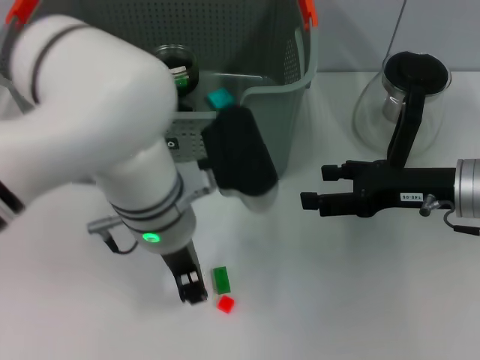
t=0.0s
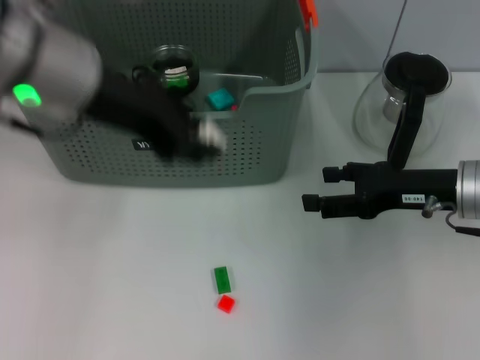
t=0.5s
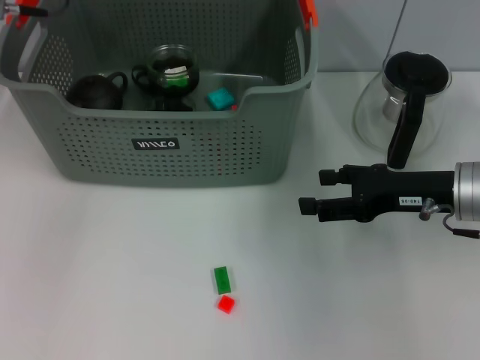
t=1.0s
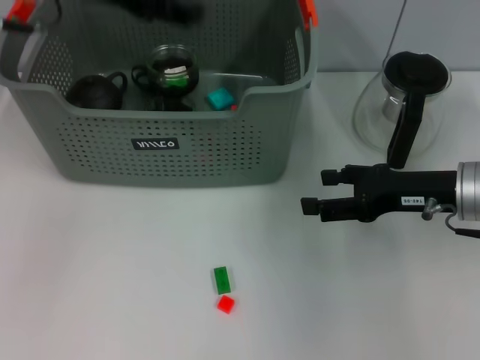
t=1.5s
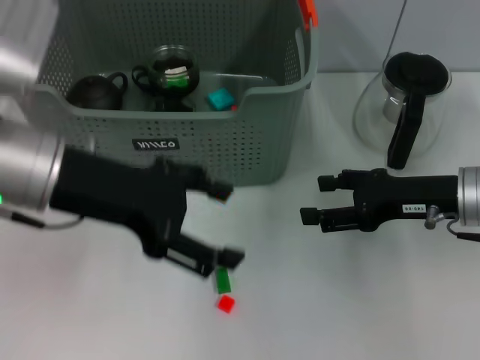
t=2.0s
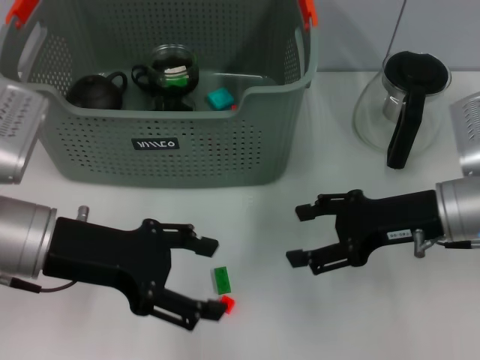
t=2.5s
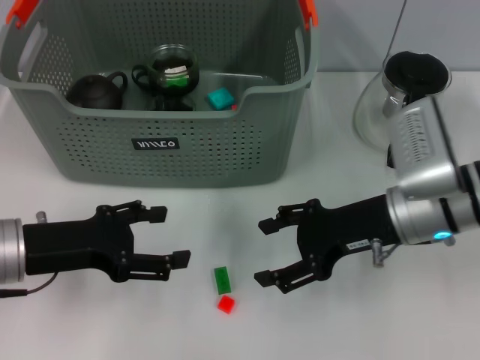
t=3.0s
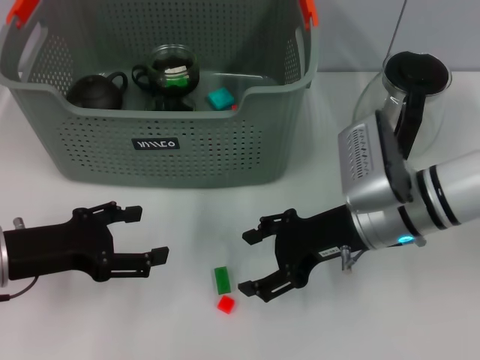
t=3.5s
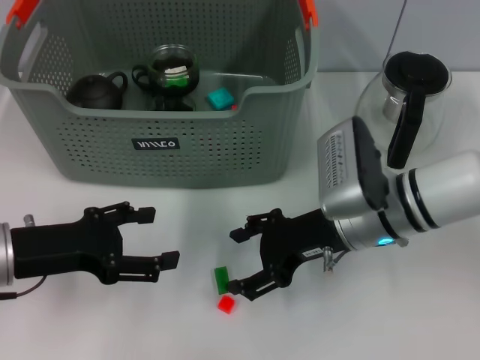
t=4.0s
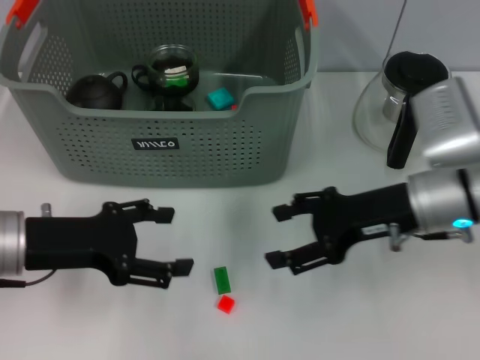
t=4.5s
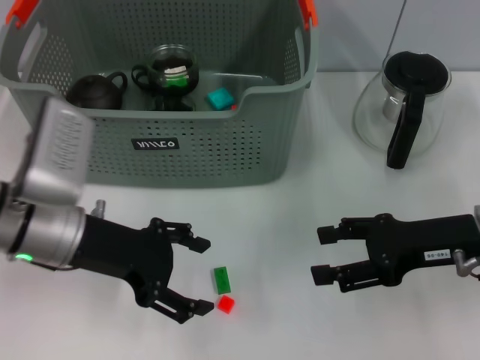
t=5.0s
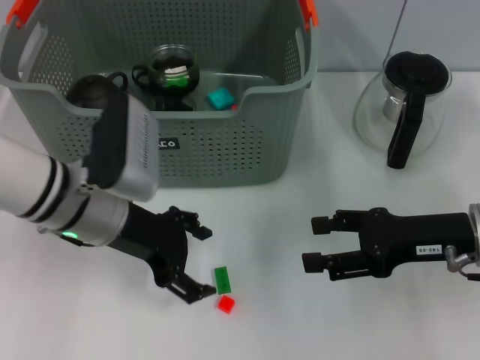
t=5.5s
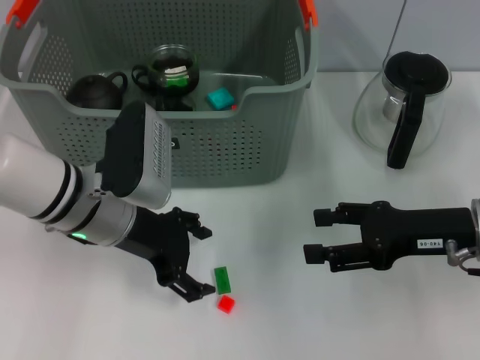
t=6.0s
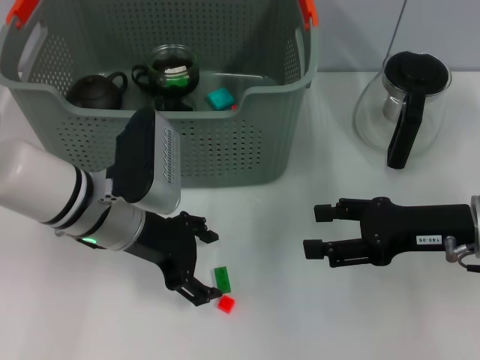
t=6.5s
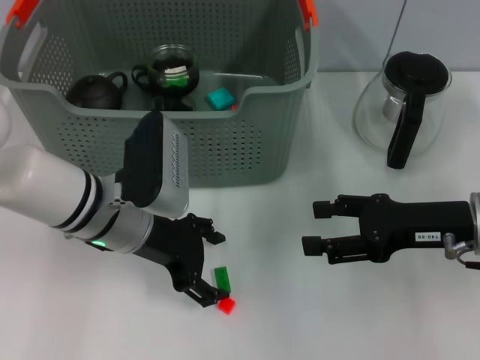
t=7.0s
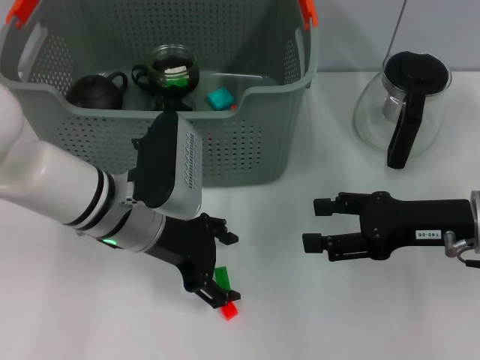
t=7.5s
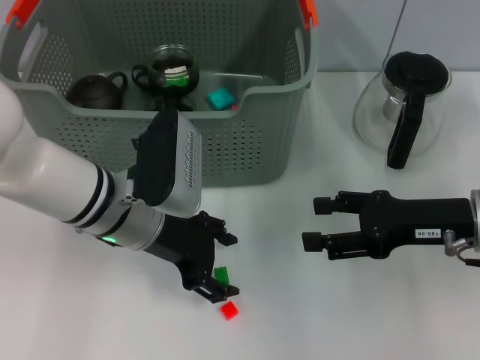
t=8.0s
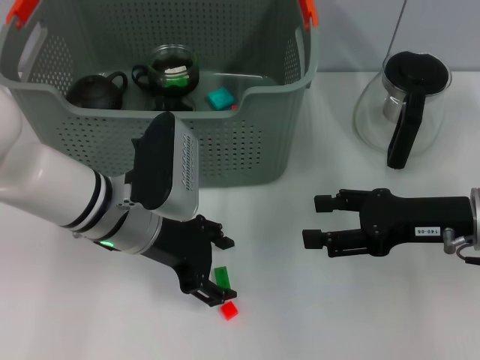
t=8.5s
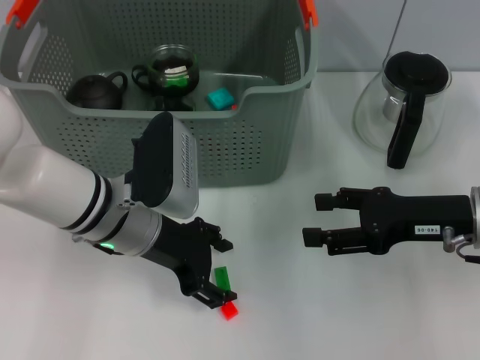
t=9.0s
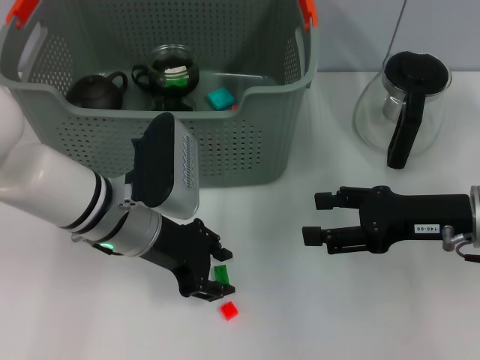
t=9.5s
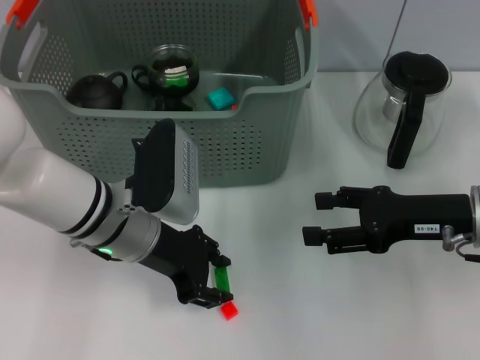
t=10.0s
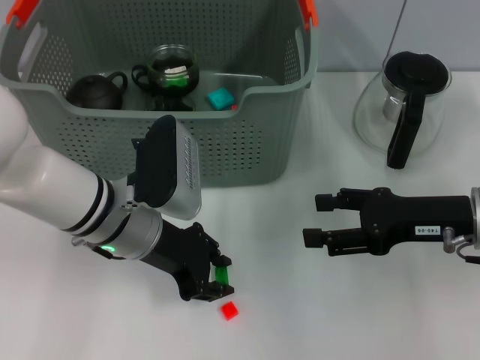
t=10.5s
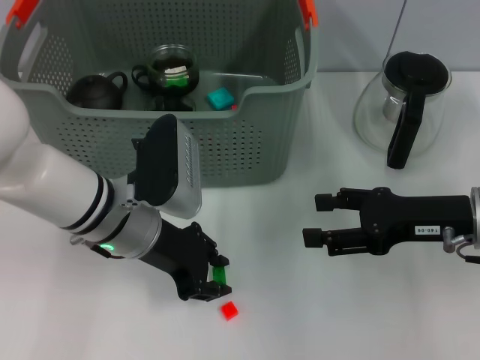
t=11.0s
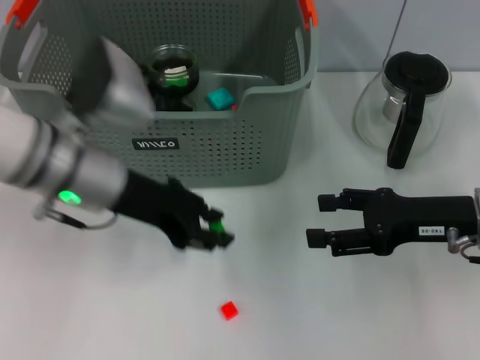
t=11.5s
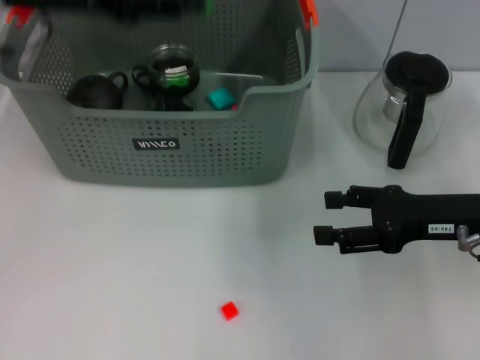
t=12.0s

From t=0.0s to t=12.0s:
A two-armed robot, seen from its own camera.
Task of the whole recording: pick up the teacup on the table and place it into the storage bin, pick up the block on the table and place it into the storage bin.
Step, from t=0.0s to t=1.0s: Place the white block in the storage box with left gripper.
Step, from t=1.5s to t=10.5s: Grasp the green block with left gripper.
From t=0.0s to t=2.0s: The left gripper travels to the left and upward by roughly 15 cm, and opens.
From t=2.0s to t=4.0s: The right gripper moves to the left, roughly 10 cm, while the left gripper is displaced downward and to the left by some 15 cm.
From t=4.0s to t=6.0s: The left gripper is displaced to the right and forward by roughly 10 cm; the right gripper heads to the right, covering some 10 cm.
From t=6.0s to t=8.0s: The grippers move only a little.
From t=8.0s to t=10.0s: The left gripper closes.
From t=10.0s to t=12.0s: The left gripper travels upward and to the left by about 20 cm.

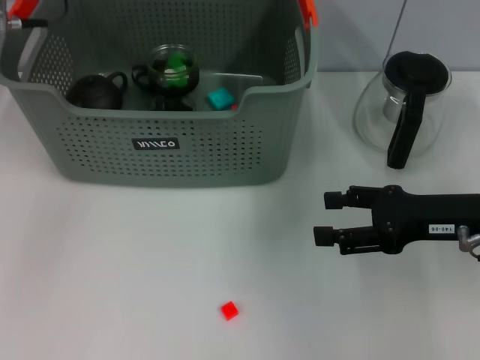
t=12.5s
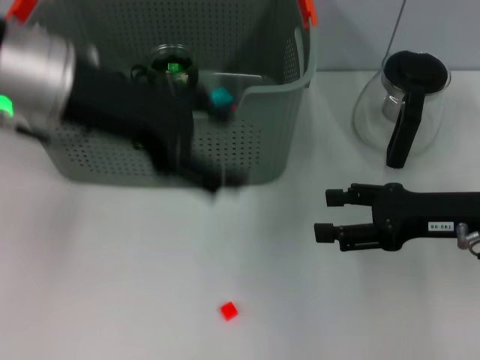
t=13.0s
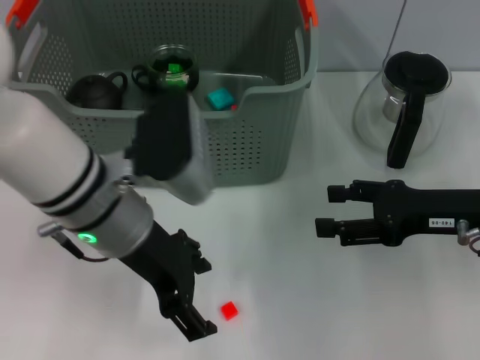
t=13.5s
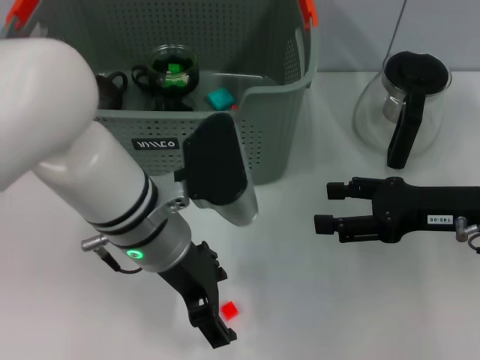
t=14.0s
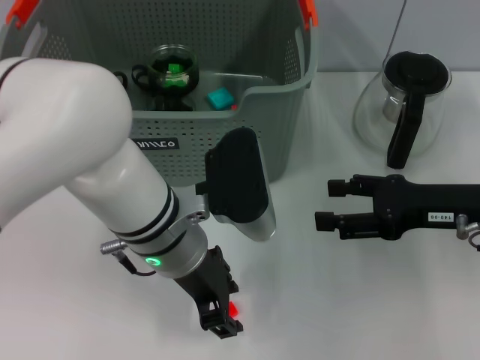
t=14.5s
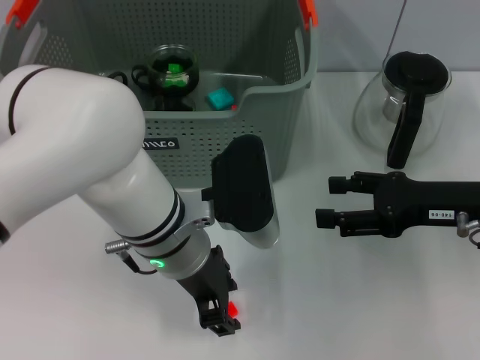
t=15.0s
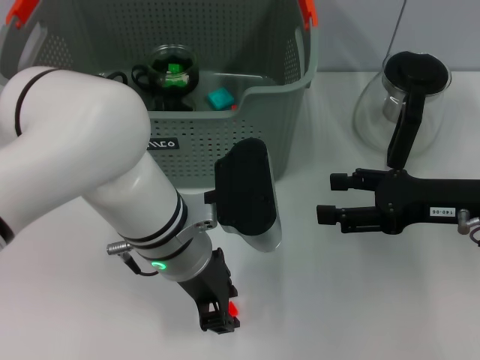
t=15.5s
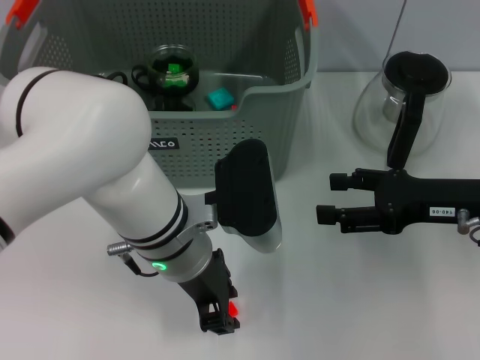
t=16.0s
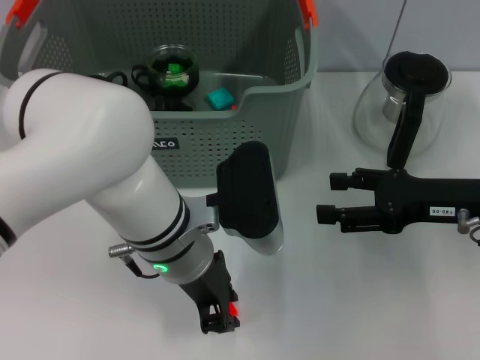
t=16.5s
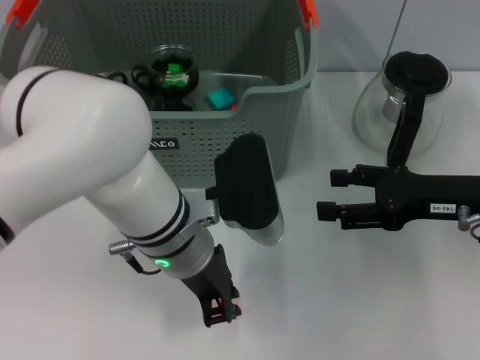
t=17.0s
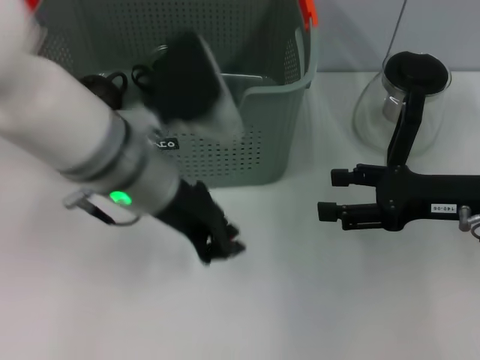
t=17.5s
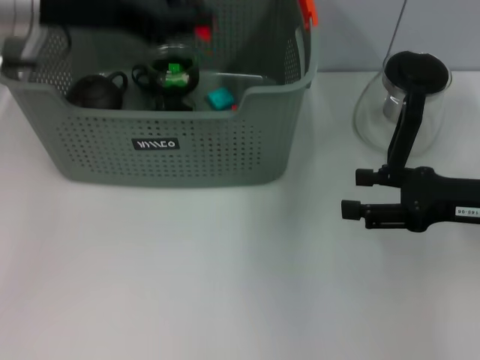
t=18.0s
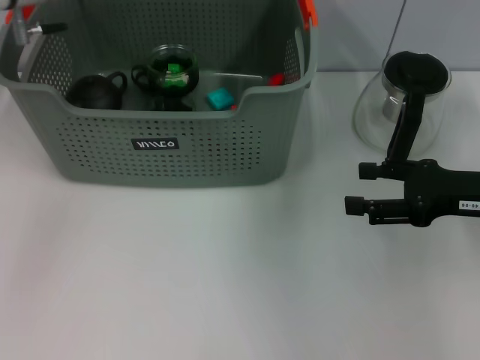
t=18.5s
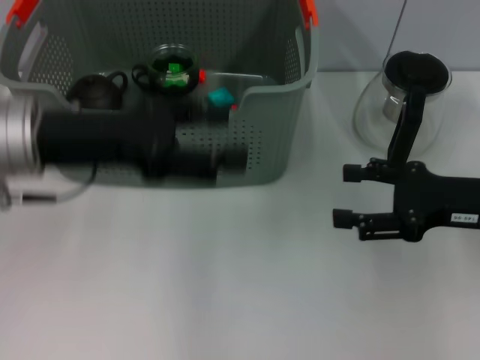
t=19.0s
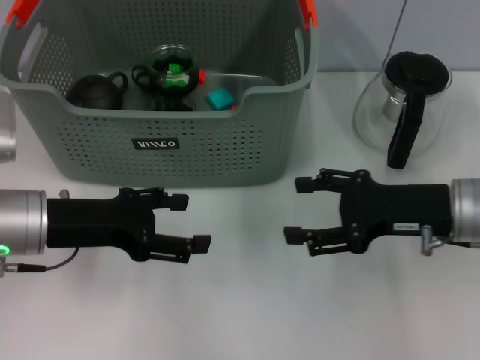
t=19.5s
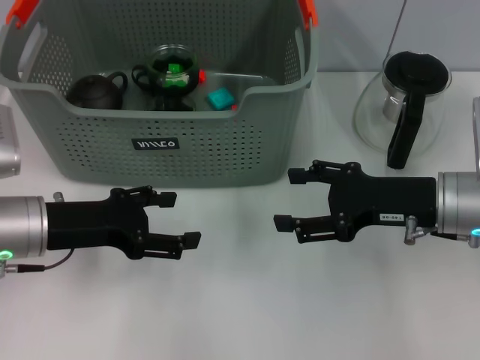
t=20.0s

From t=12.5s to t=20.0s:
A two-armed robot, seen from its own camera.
Task of the whole recording: pick up the teacup on the table and place it into the storage bin, pick up the block on the table and place it into the storage bin.
Step, from t=13.0s to t=16.5s: Grasp the orange block with left gripper.
Step, from t=17.0s to t=18.5s: Place the orange block in the storage box with left gripper.
From t=12.5s to t=14.5s: The left gripper shifts roughly 25 cm to the right, downward and backward.
From t=14.5s to t=16.5s: The left gripper closes its fingers.
From t=16.5s to t=18.0s: The left gripper shifts roughly 20 cm upward and to the left.
From t=18.0s to t=20.0s: The left gripper shifts some 20 cm downward, and opens, while the right gripper travels to the left by some 5 cm.

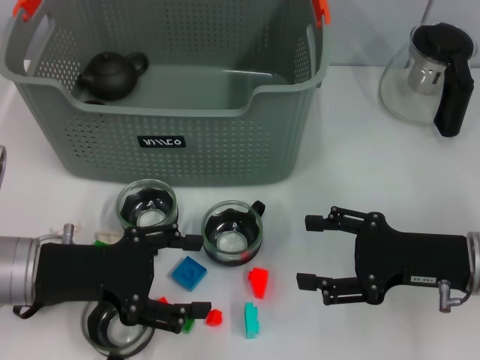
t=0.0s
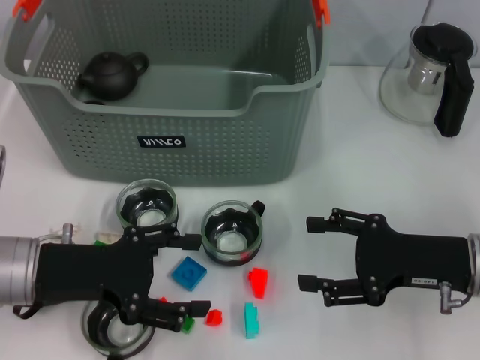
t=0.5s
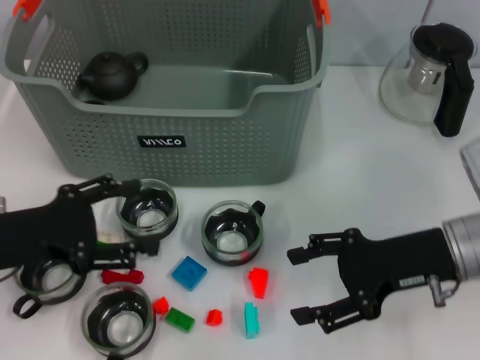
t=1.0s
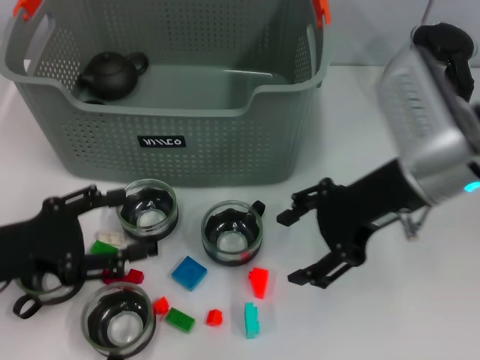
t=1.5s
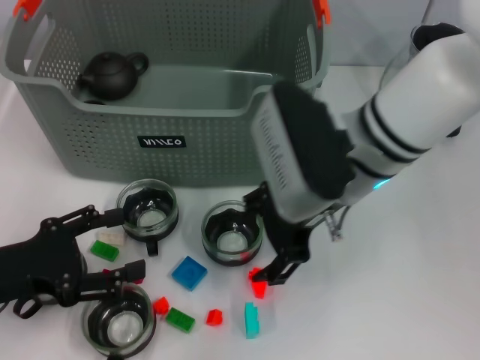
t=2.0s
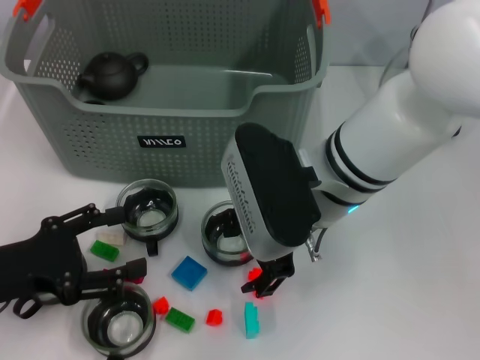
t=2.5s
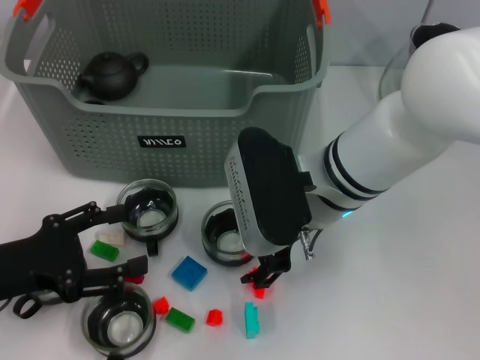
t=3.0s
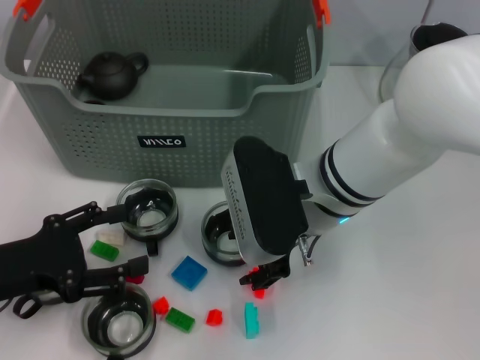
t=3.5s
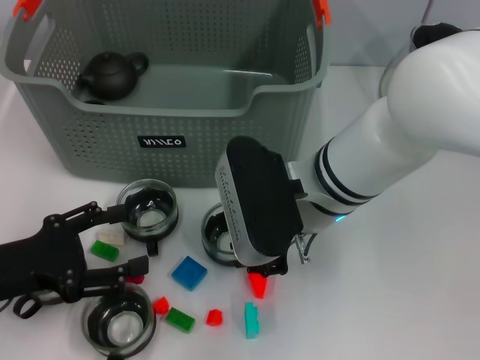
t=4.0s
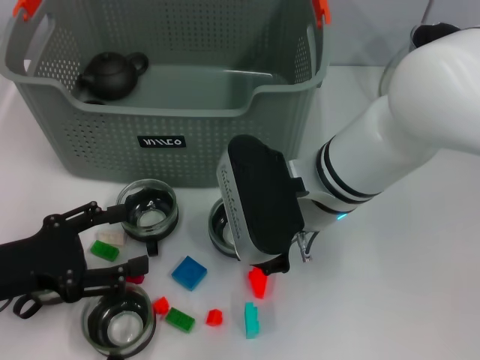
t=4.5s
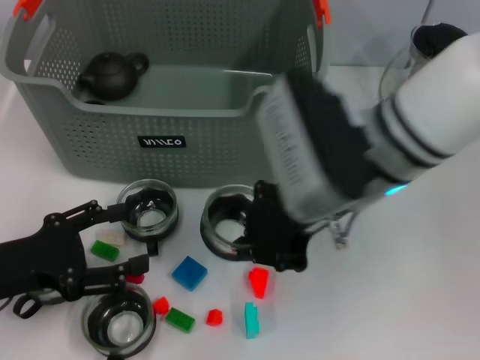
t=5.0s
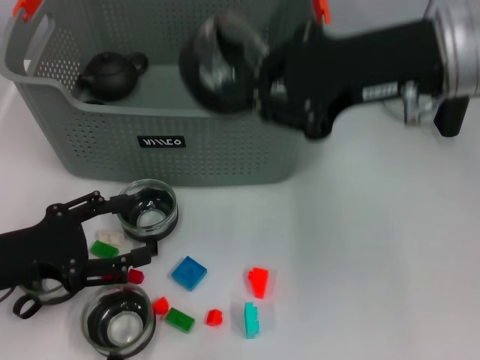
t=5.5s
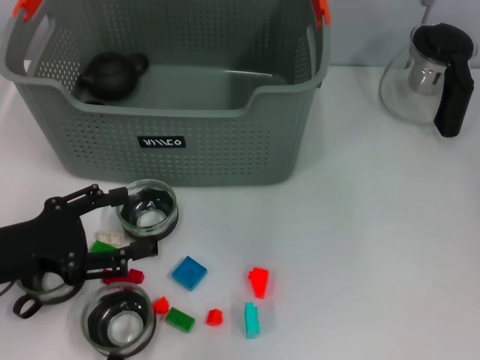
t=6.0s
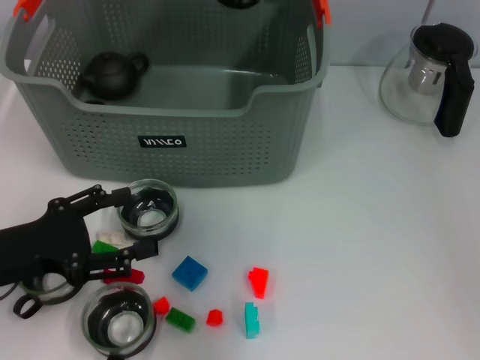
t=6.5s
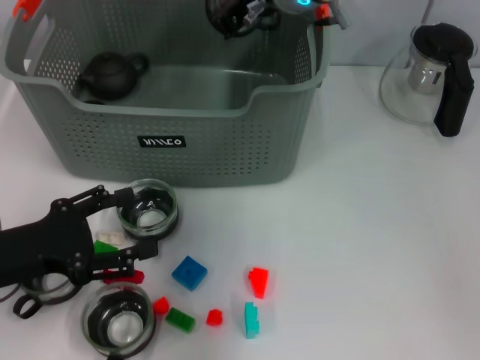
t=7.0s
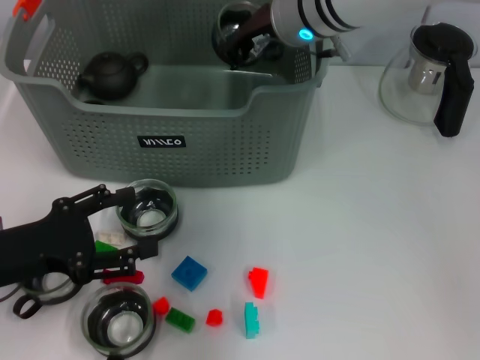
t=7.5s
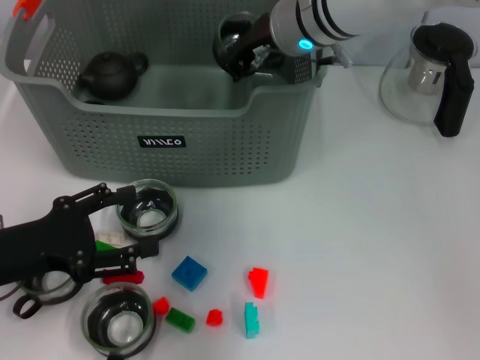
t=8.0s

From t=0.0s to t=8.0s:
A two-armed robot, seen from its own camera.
Task of the whole recording: pick up the teacup on the table and place it into the storage bin, pick up the block on the table and place it into the storage bin.
Step, from t=0.0s to t=4.0s: Grasp the cup with right gripper.
From t=0.0s to t=2.0s: The right gripper heads to the left, upward and forward, covering about 20 cm. Meanwhile the left gripper shifts about 5 cm to the left.
From t=2.0s to t=4.0s: The right gripper closes.
From t=4.0s to t=6.0s: The right gripper is displaced upward, forward and to the right by roughly 20 cm, and closes its fingers.
From t=6.0s to t=8.0s: The right gripper travels downward, to the left and forward by approximately 15 cm.
